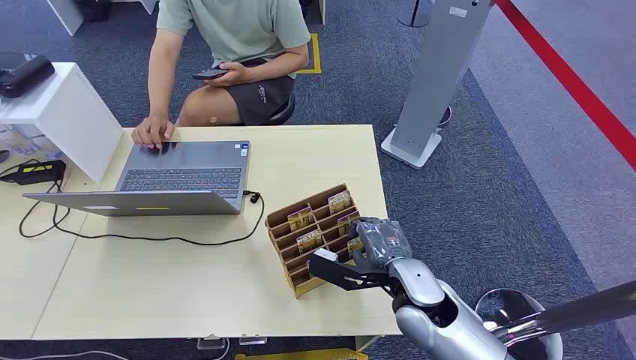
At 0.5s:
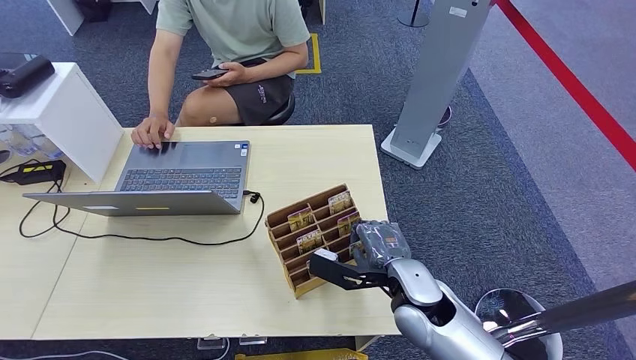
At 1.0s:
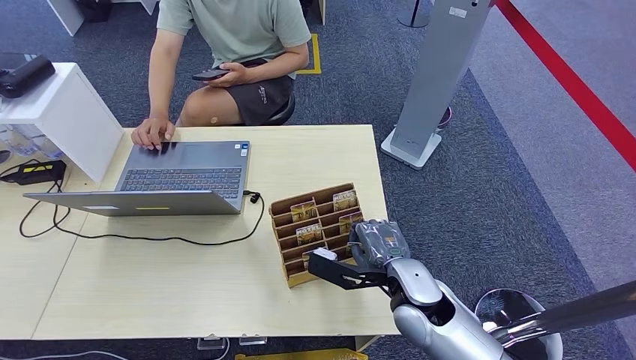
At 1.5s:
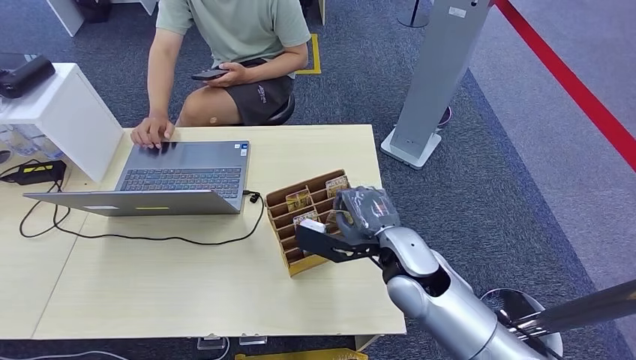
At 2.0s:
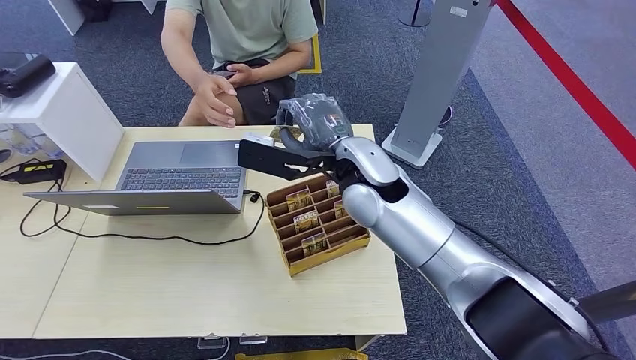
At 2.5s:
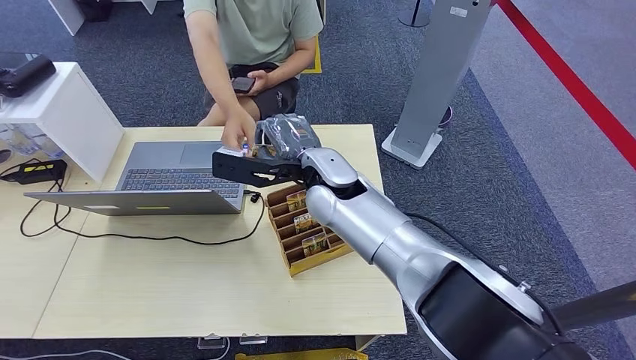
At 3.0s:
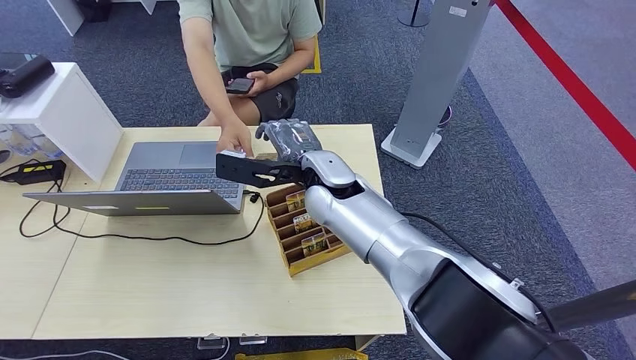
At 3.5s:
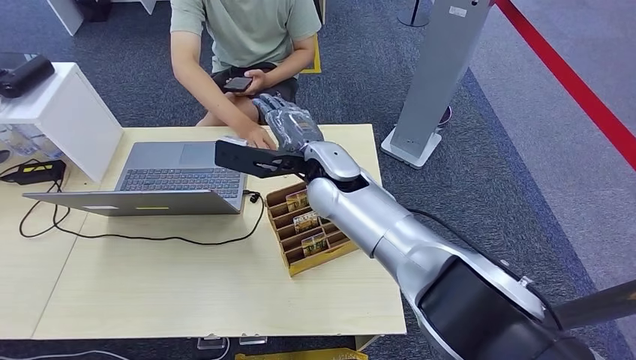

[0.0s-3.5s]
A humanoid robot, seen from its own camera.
Step, 0.0s to 1.5s: Pick up the room card from the card holder.
Step, 2.0s to 3.0s: Hand the room card to the target.
2.0s to 3.5s: The right hand is displaced to the left by roughly 5 cm.
